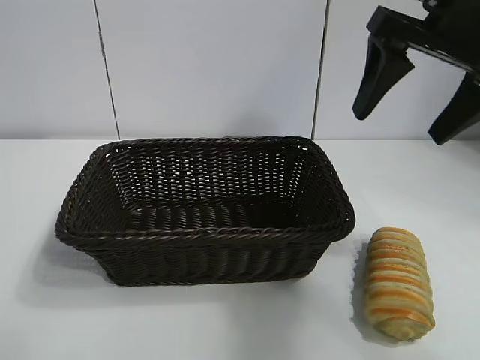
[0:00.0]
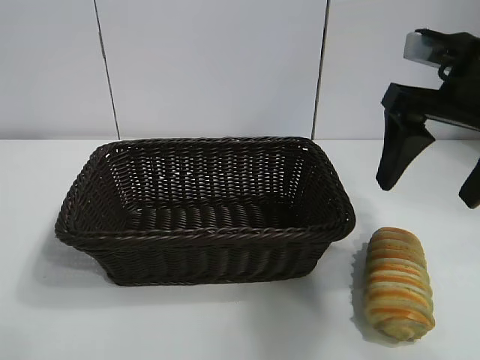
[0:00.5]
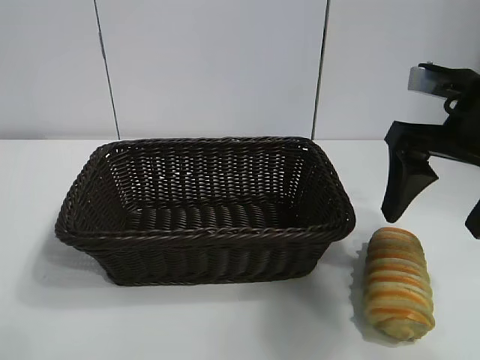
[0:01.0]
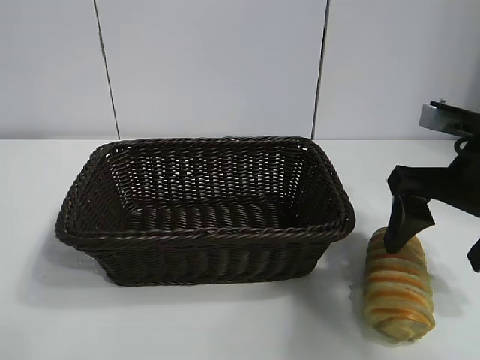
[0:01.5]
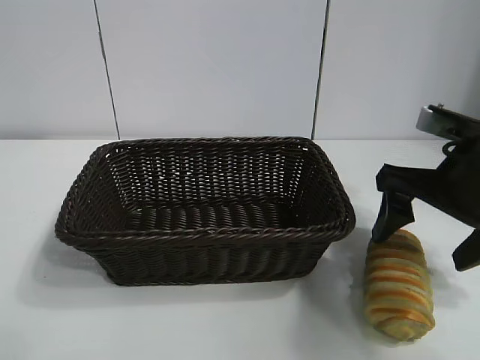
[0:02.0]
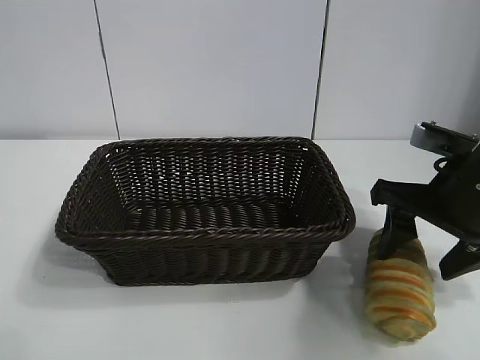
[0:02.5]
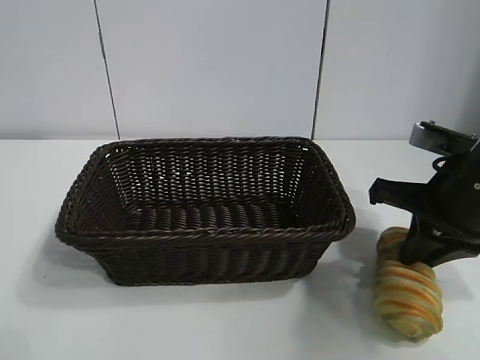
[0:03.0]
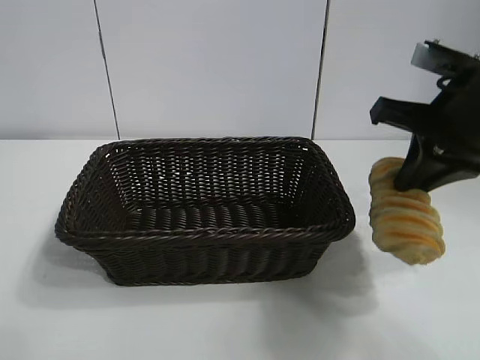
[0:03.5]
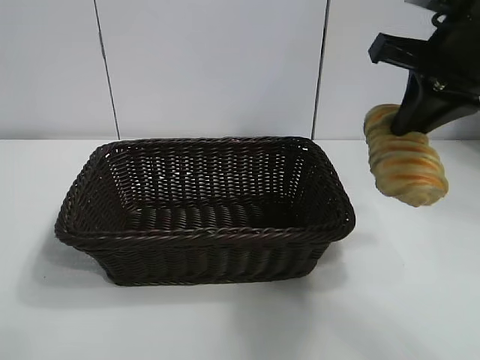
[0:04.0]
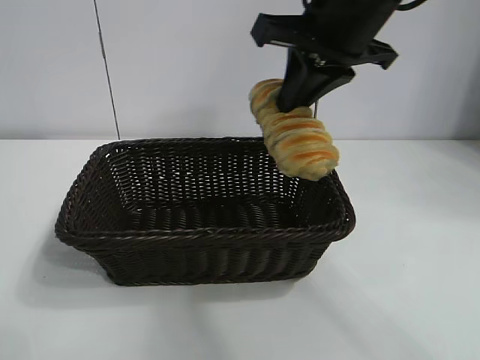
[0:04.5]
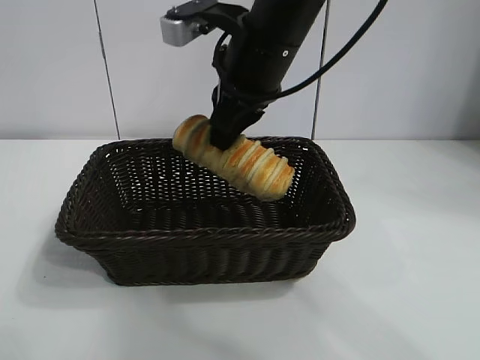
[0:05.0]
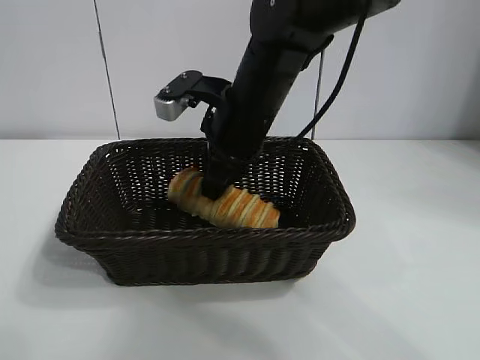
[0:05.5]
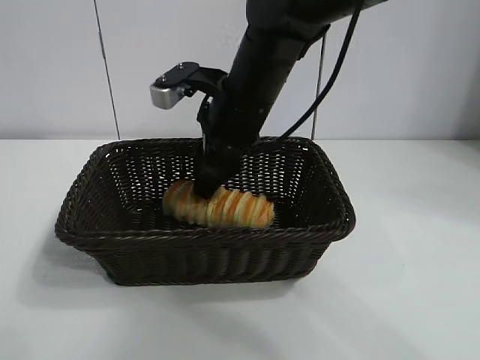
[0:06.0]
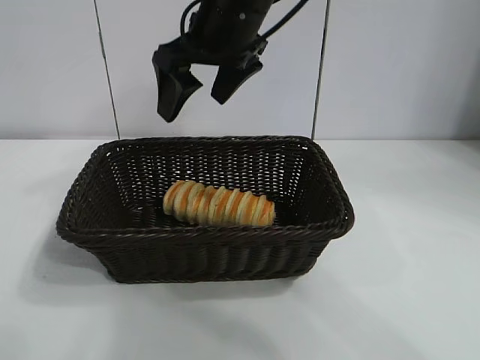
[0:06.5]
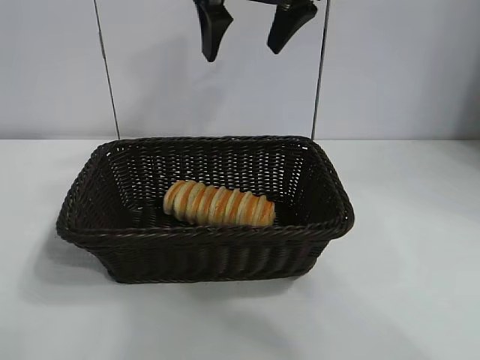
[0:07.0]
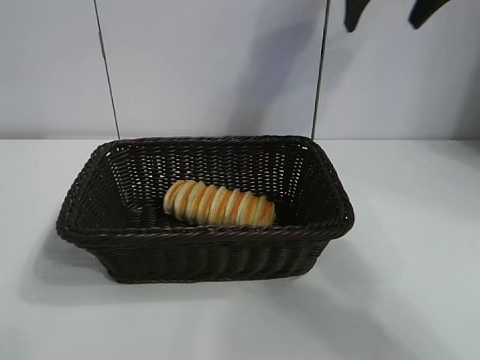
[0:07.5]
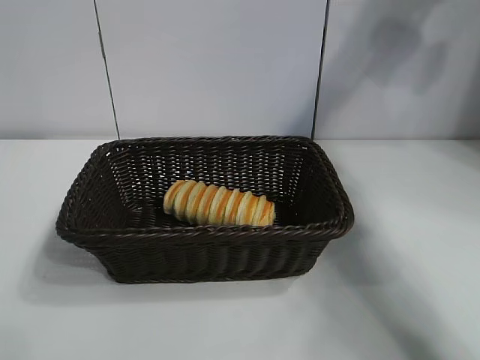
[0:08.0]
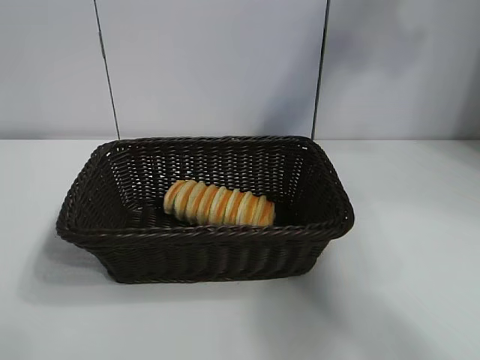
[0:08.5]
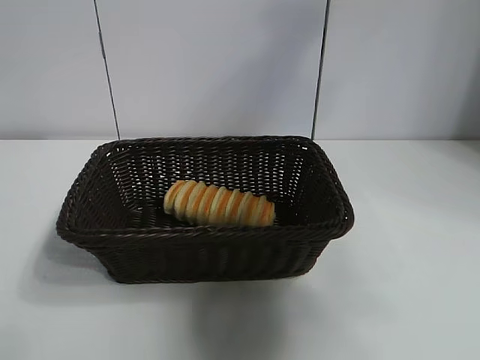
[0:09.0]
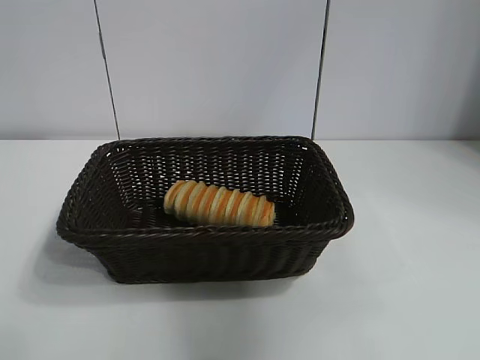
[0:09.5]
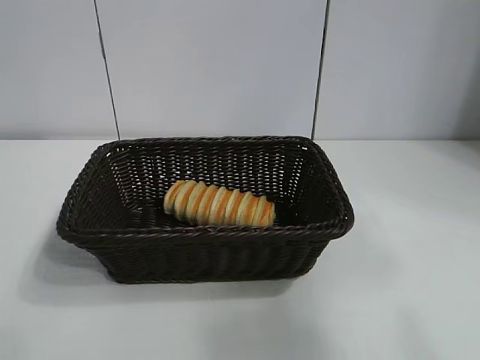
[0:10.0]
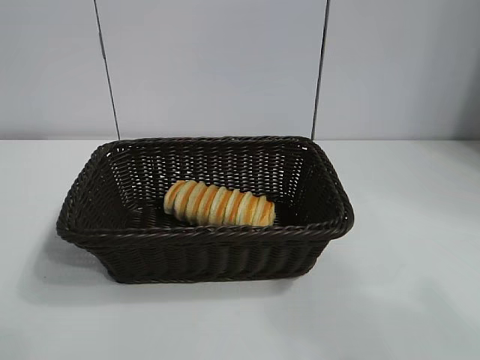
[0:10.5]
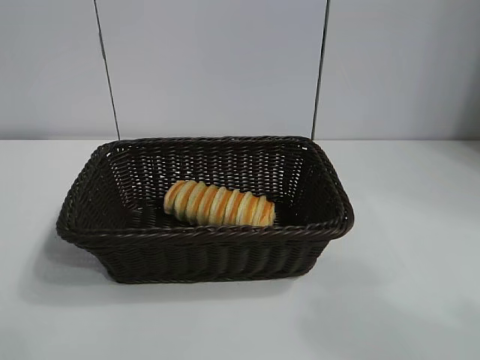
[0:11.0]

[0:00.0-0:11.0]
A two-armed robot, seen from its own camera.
Task of the whole recording: pick up the long bread and put it into the basket.
Step, 0:00.0 to 0:03.0: Grasp the long bread with right gripper.
Step, 0:03.5 to 0:06.0: Place the long bread in the basket with right gripper.
